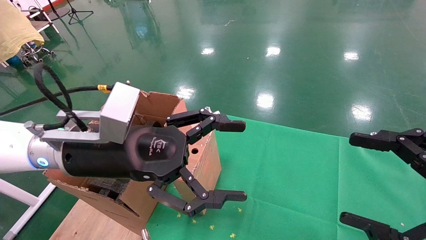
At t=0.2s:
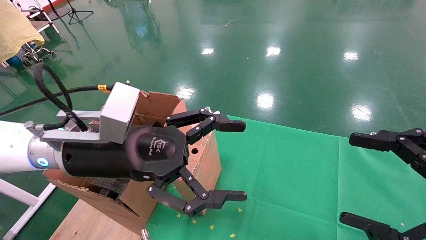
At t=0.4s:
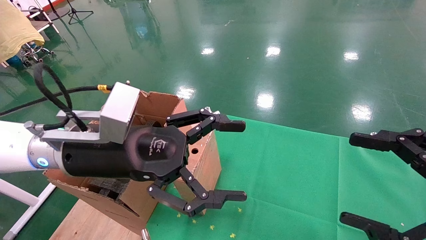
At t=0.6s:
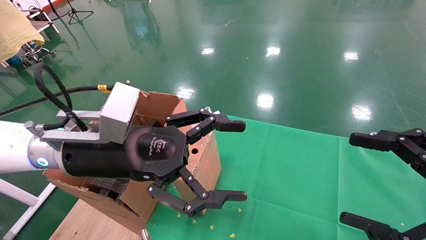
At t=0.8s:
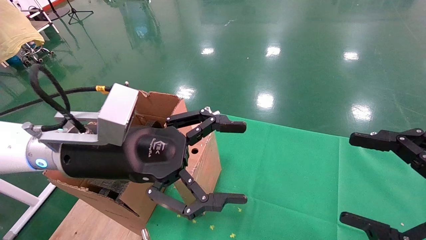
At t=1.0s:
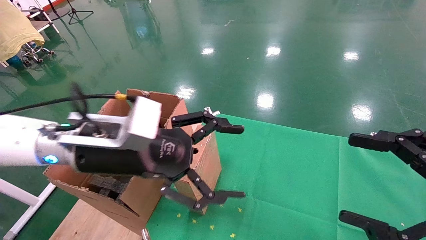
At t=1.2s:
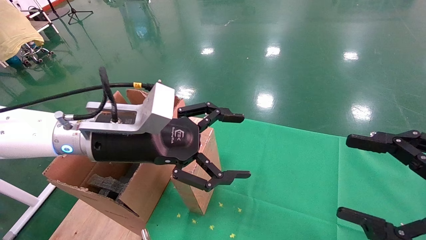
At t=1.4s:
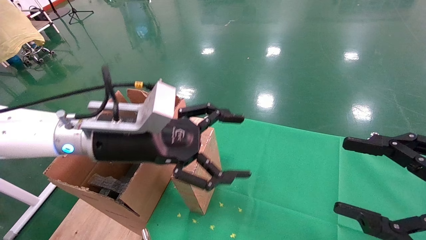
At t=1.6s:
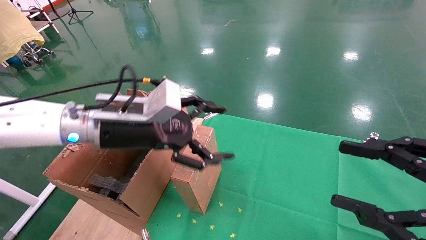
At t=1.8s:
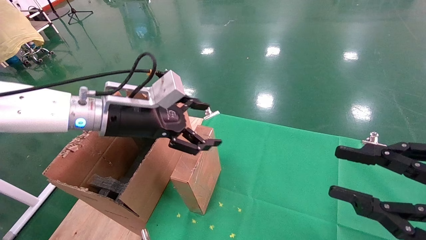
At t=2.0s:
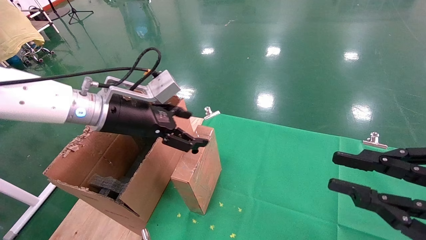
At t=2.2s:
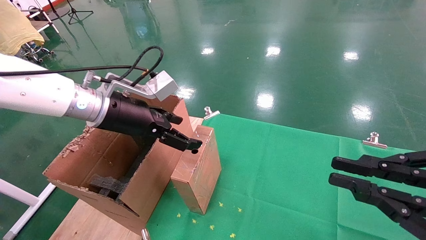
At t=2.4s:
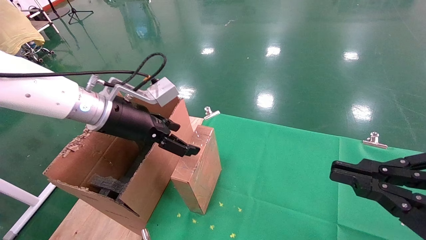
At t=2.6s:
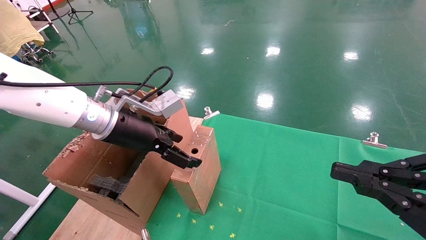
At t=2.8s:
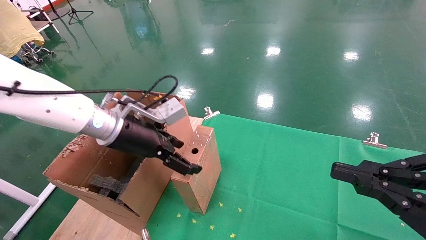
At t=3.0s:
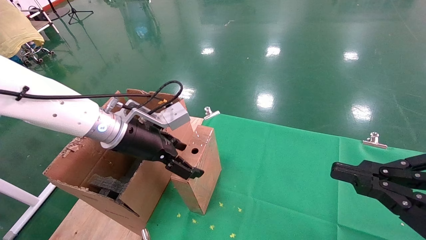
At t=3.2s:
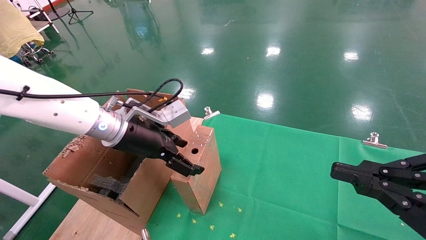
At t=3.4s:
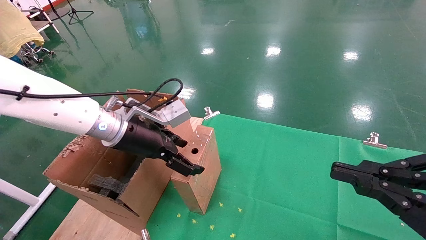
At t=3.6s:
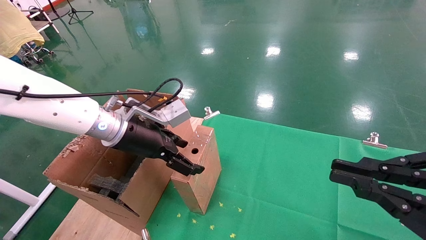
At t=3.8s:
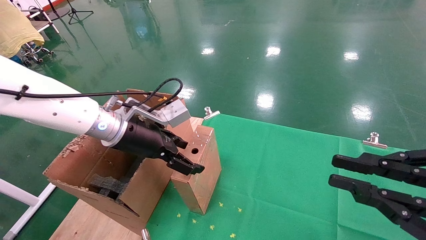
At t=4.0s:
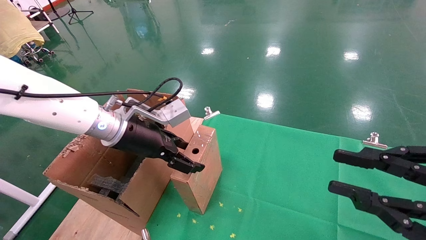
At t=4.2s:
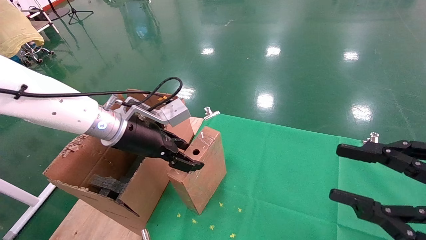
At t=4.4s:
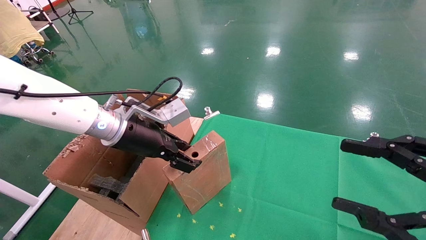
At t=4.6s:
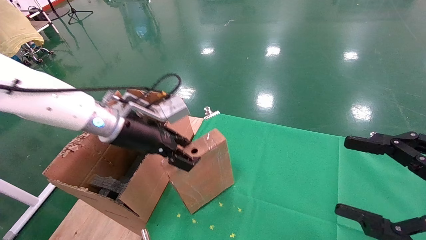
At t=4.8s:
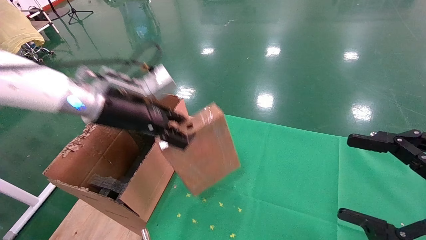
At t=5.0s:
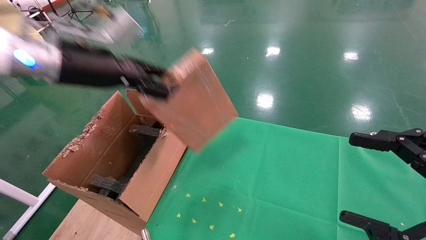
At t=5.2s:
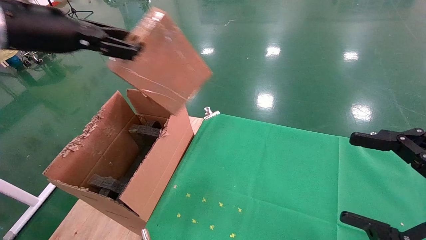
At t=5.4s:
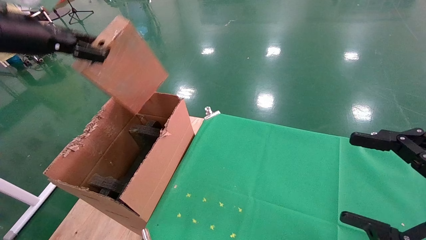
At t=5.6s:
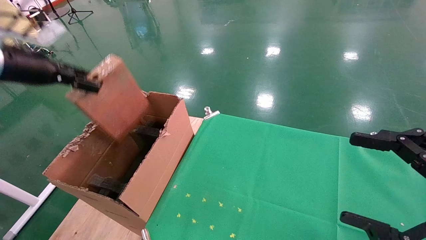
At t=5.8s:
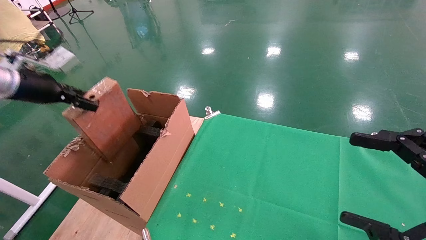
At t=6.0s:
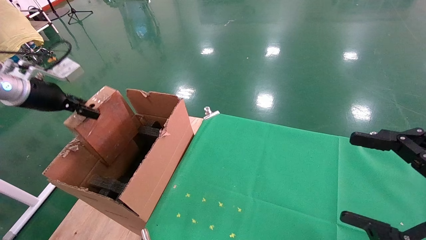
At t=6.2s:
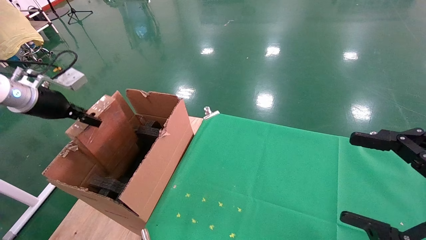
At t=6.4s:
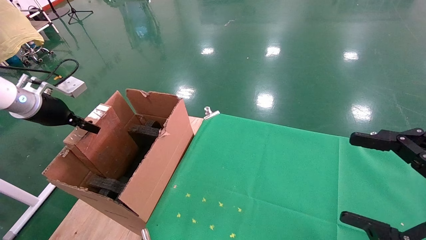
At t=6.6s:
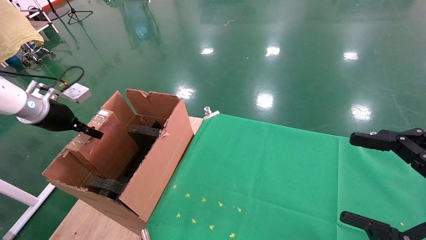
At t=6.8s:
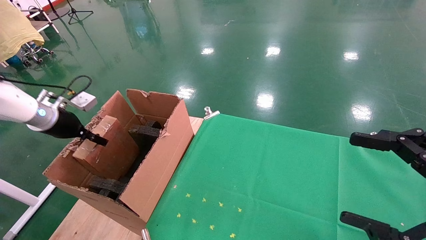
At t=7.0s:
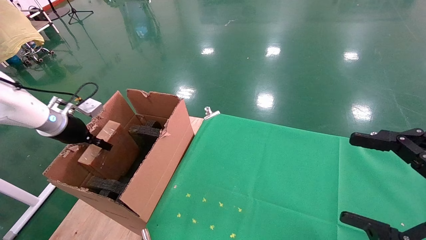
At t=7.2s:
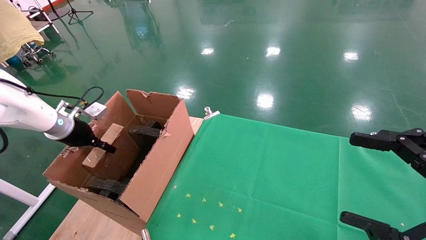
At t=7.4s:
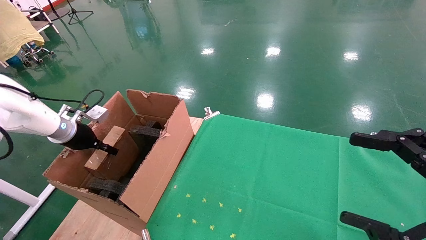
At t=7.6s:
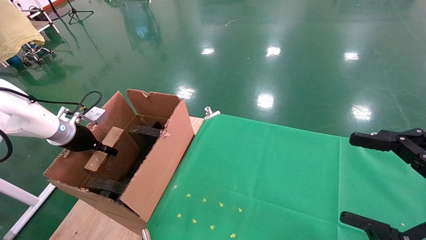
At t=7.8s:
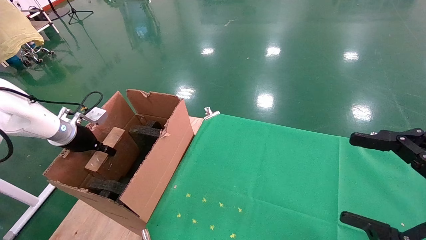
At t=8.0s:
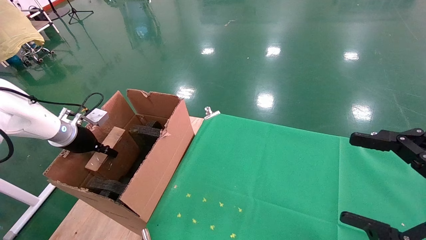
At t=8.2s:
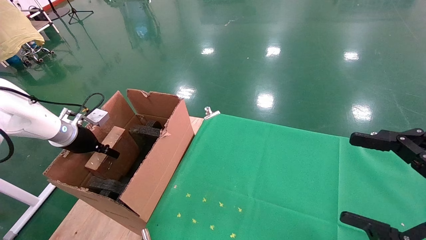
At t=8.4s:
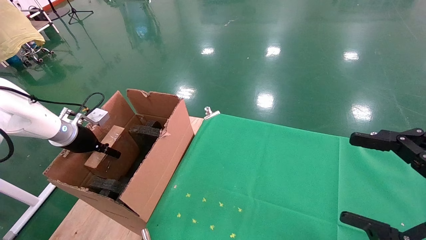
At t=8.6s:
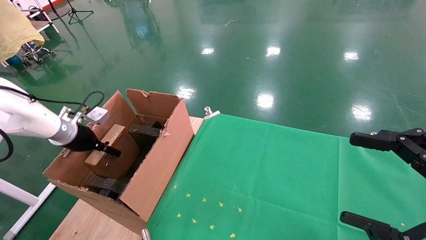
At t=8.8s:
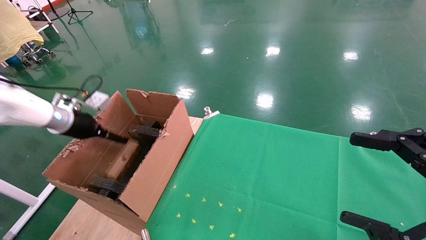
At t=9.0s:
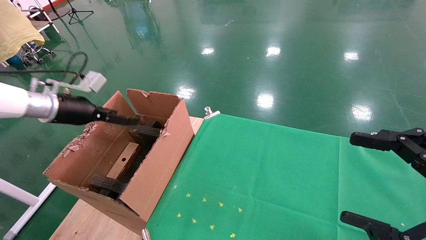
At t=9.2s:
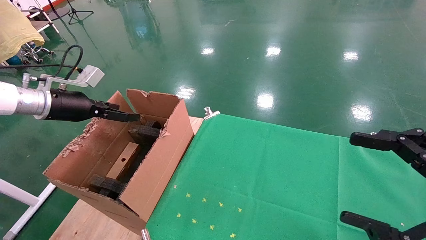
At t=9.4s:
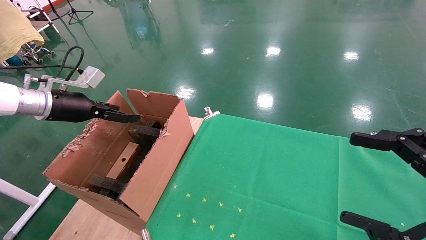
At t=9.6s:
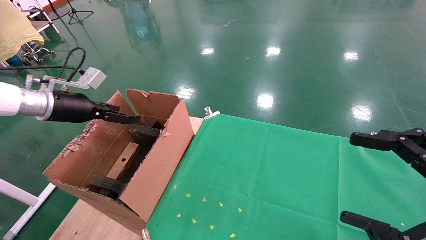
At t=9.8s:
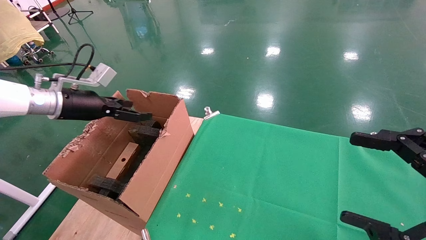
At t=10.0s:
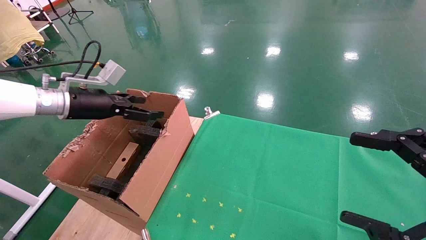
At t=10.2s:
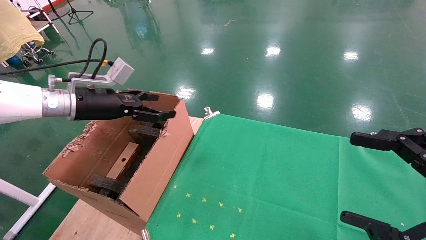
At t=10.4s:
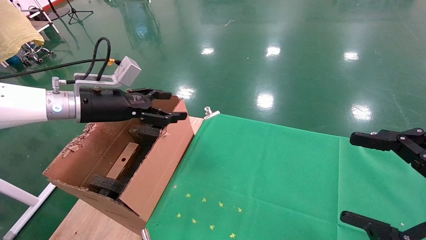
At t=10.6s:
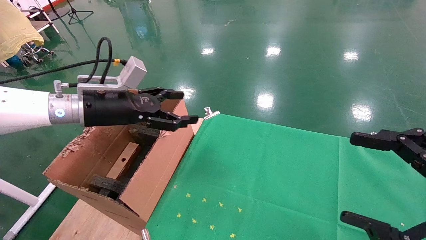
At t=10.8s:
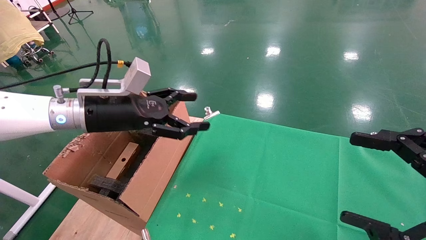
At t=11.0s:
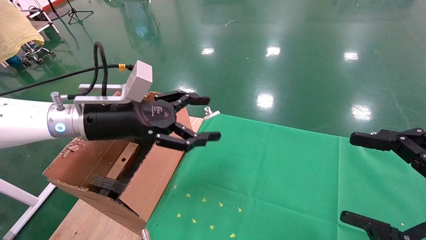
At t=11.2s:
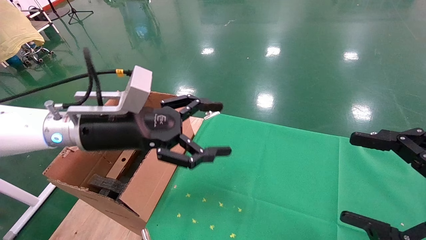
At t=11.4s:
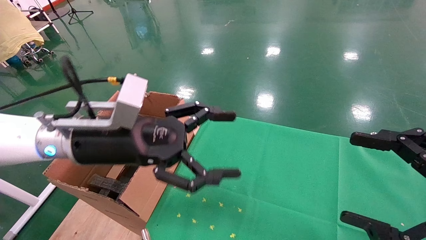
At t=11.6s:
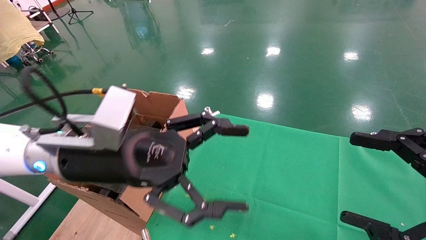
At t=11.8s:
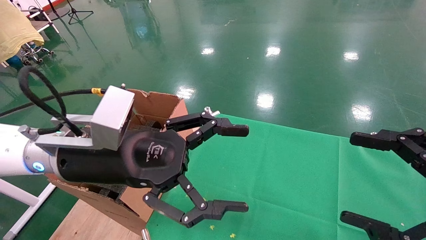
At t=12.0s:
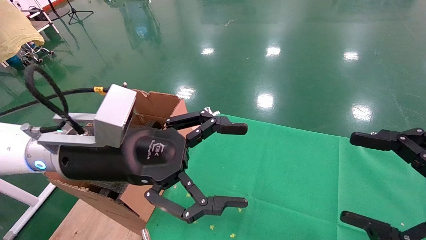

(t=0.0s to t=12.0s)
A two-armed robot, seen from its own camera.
Task of the whole recording: using a robotic arm to pick up a cardboard box and palace it the carton.
Step, t=1.2s - t=4.4s: Pick up the mouse and the power cord paper box.
Step, t=4.6s - t=8.6s: Place the mouse and the power cord paper box into the container.
t=0.0s - t=1.6s: The left gripper moves forward, roughly 5 cm.
t=1.6s - t=3.0s: The right gripper closes its fingers.
t=3.0s - t=4.4s: The right gripper opens its fingers; the left gripper closes its fingers.
t=4.4s - t=6.0s: The right gripper opens up. Meanwhile the left gripper heads to the left, covering approximately 25 cm.
t=6.0s - t=7.6s: The left gripper goes roughly 15 cm downward and forward.
t=7.6s - t=9.0s: The left gripper travels upward by about 10 cm, and opens its fingers.
t=9.0s - t=10.4s: The left gripper is displaced to the right by about 10 cm.
t=10.4s - t=12.0s: The left gripper shifts about 20 cm to the right and backward.

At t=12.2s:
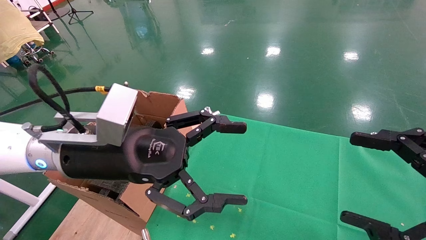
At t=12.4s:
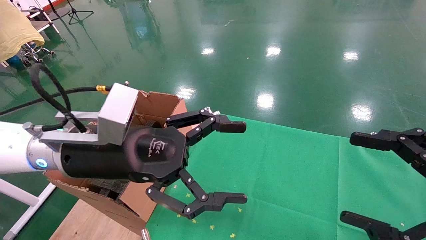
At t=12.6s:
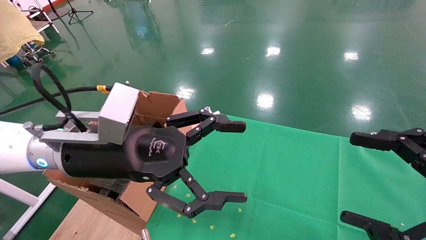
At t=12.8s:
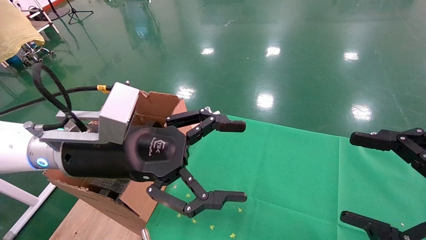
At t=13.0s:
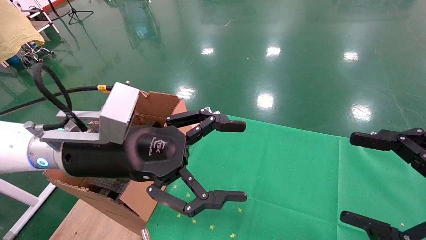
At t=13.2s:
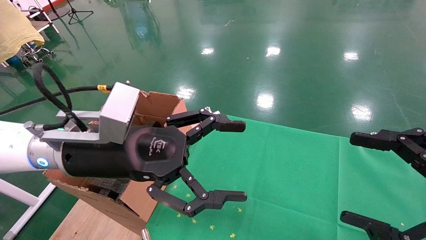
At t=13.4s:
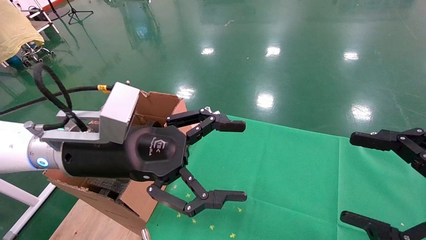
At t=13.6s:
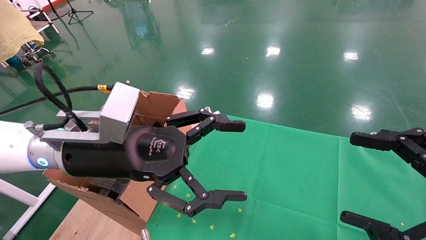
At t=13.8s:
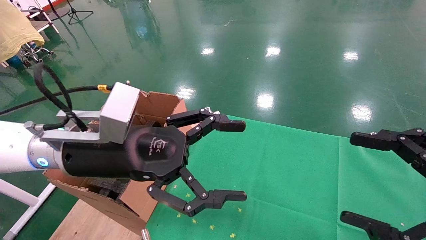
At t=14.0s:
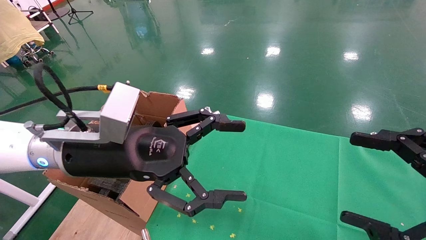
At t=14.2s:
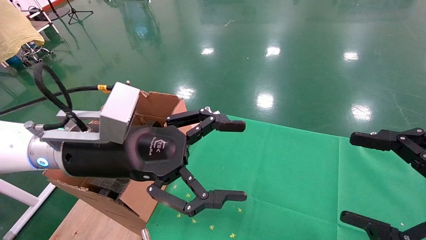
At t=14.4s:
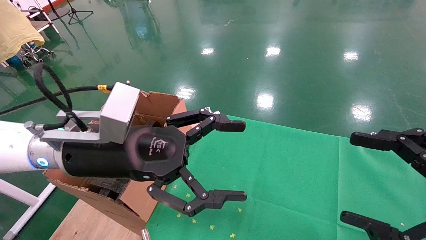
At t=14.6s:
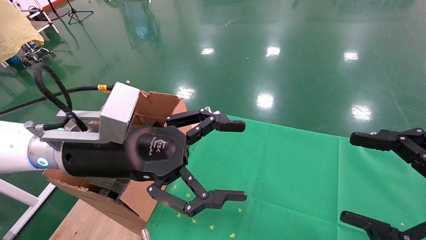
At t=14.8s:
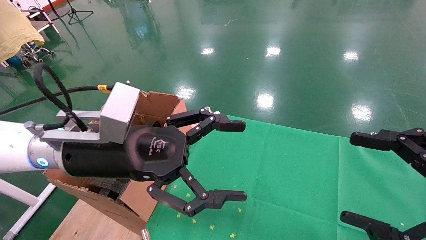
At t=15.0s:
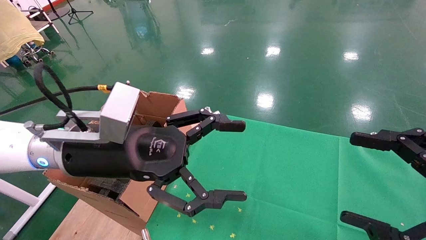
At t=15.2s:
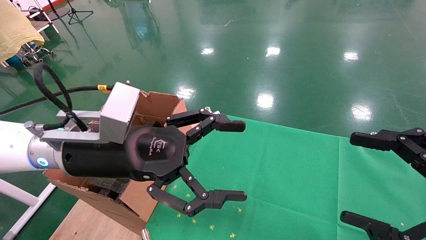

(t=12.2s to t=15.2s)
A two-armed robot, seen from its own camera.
Task of the whole recording: using a robotic arm to pick up a cardboard box and palace it the carton.
t=12.2s - t=15.2s: Both grippers stay about where they are.
